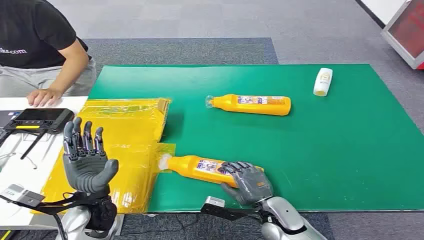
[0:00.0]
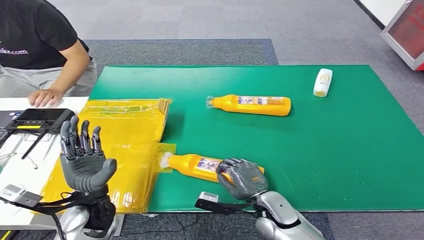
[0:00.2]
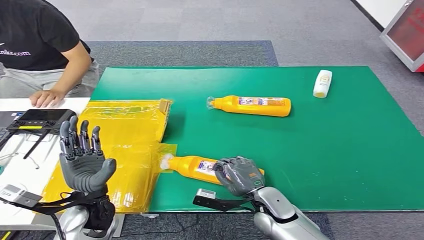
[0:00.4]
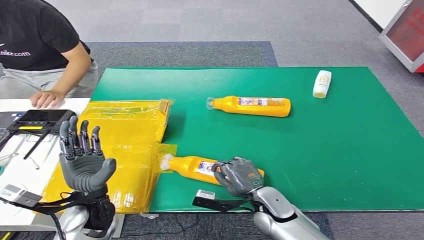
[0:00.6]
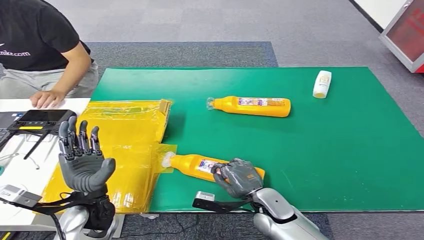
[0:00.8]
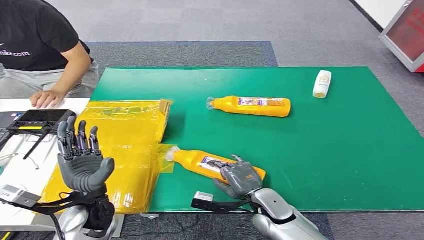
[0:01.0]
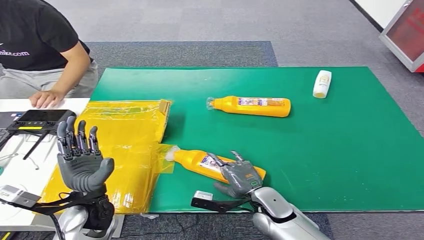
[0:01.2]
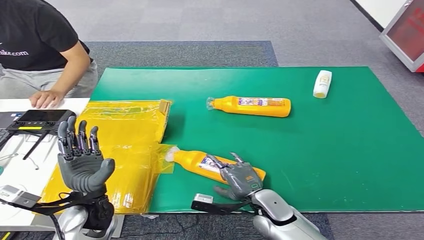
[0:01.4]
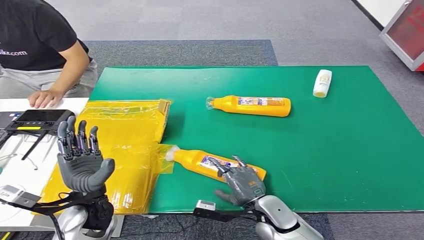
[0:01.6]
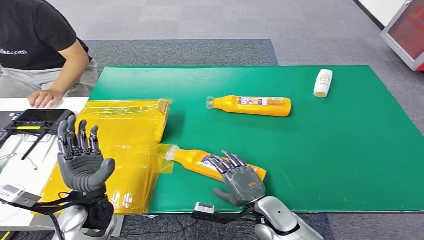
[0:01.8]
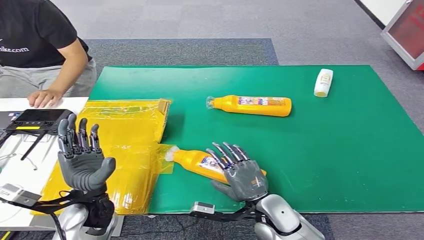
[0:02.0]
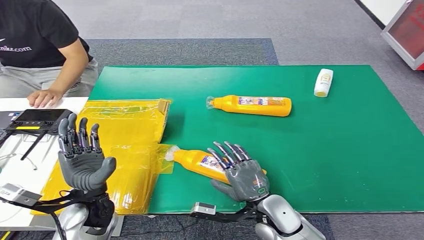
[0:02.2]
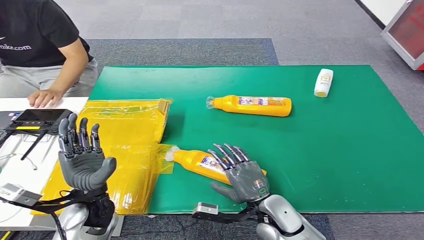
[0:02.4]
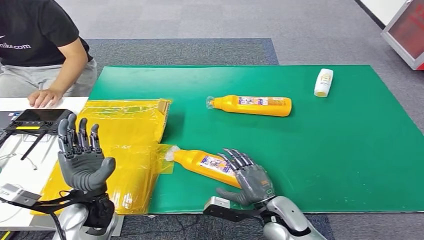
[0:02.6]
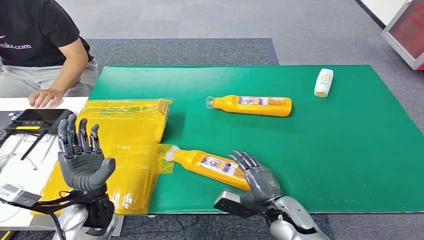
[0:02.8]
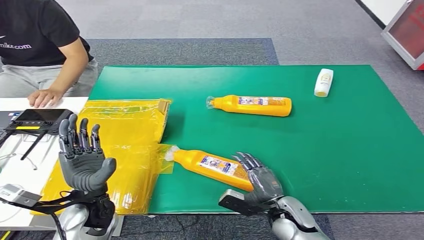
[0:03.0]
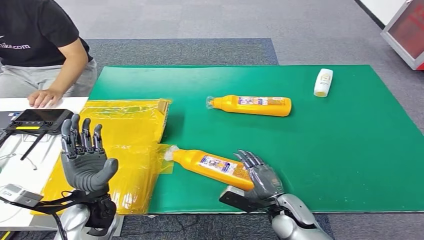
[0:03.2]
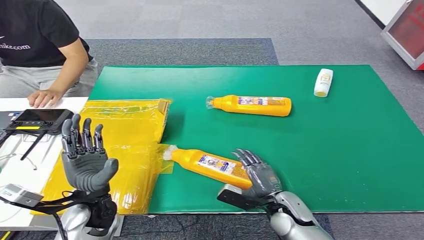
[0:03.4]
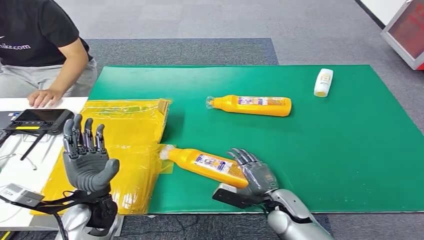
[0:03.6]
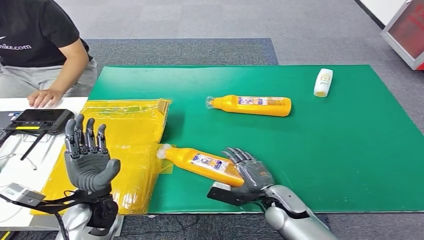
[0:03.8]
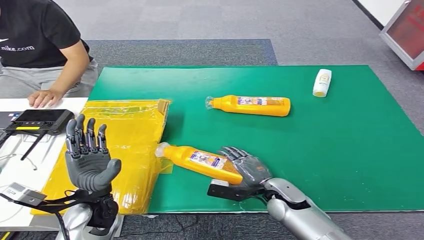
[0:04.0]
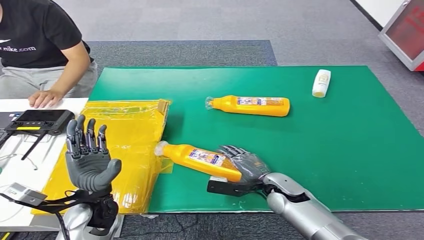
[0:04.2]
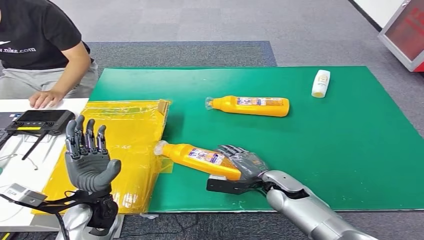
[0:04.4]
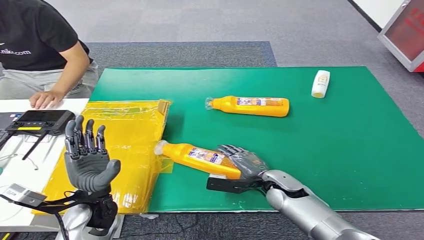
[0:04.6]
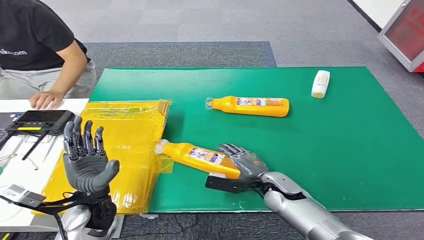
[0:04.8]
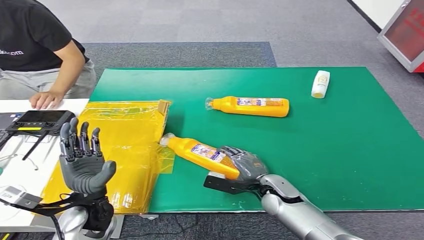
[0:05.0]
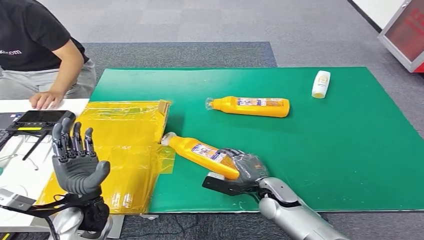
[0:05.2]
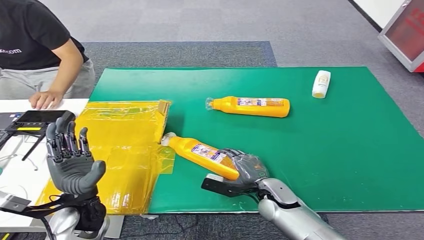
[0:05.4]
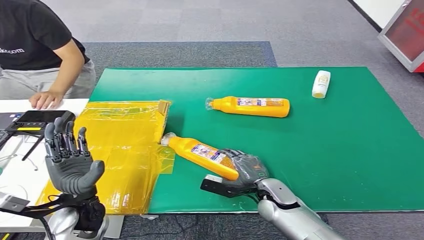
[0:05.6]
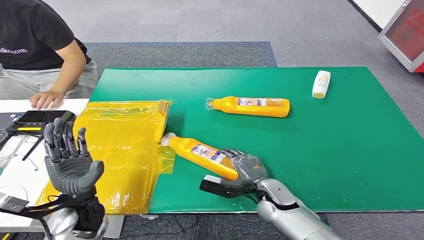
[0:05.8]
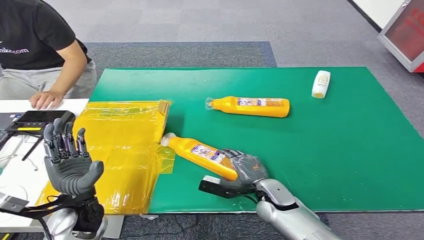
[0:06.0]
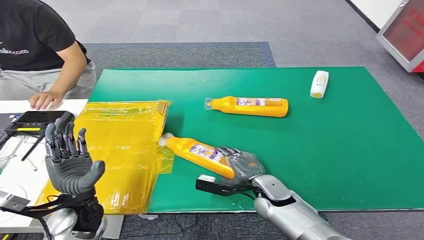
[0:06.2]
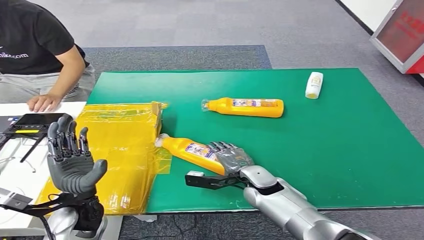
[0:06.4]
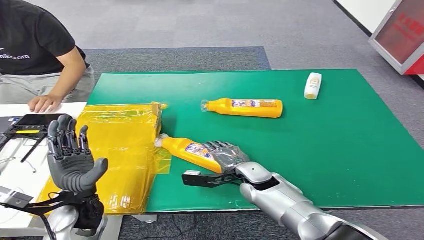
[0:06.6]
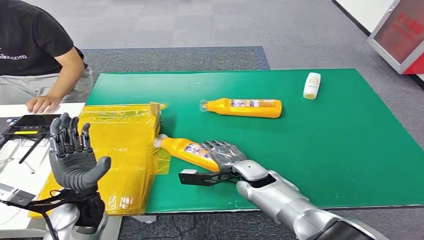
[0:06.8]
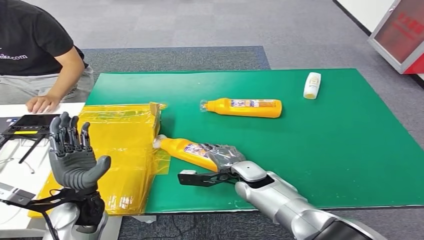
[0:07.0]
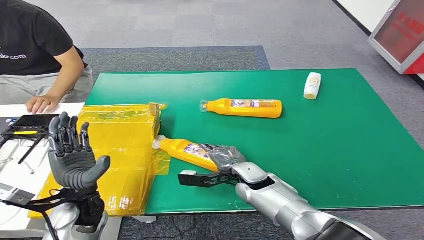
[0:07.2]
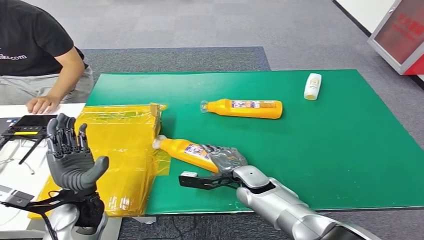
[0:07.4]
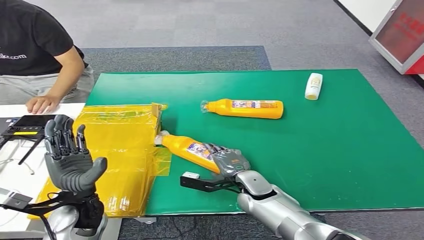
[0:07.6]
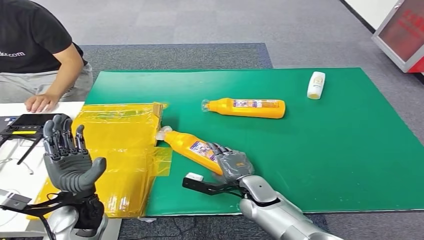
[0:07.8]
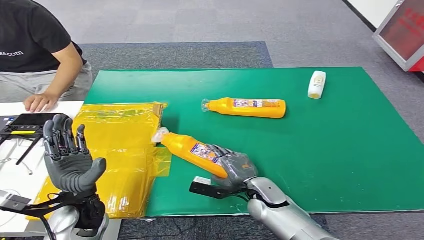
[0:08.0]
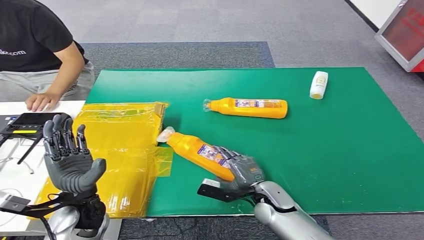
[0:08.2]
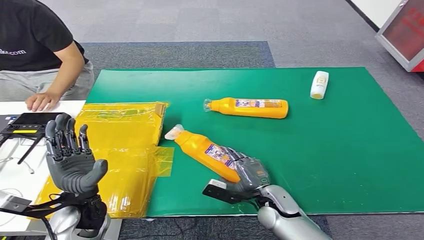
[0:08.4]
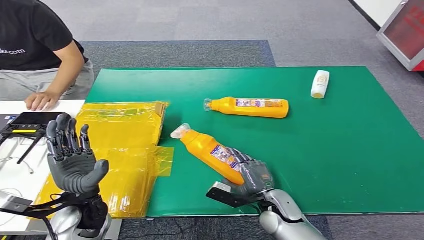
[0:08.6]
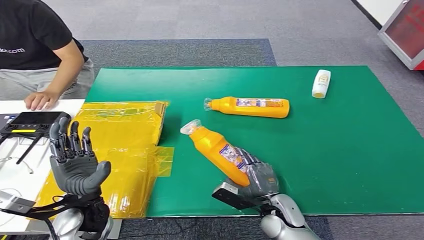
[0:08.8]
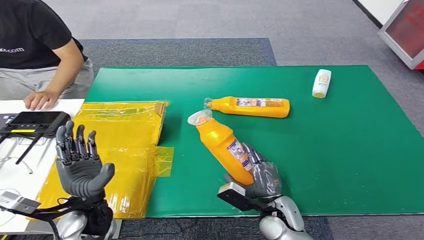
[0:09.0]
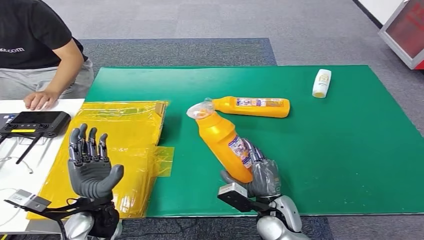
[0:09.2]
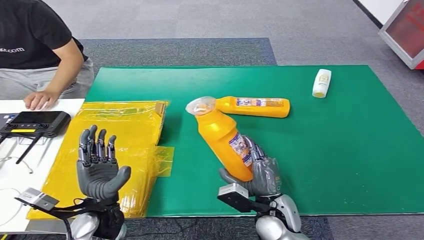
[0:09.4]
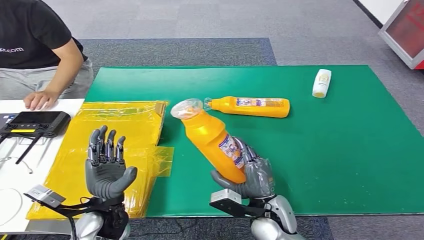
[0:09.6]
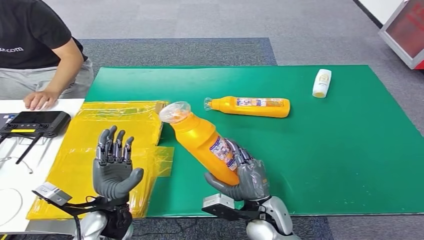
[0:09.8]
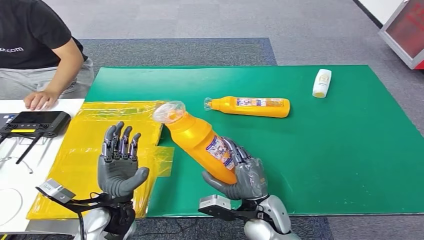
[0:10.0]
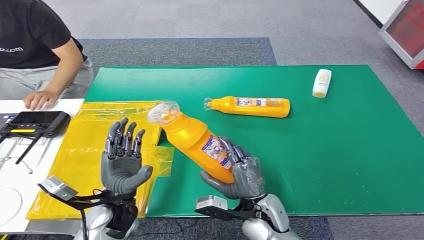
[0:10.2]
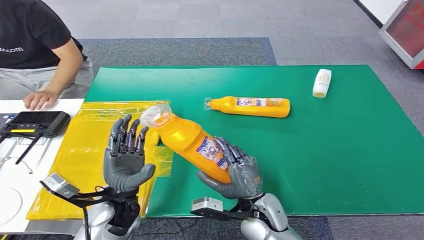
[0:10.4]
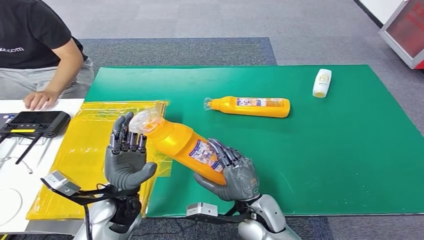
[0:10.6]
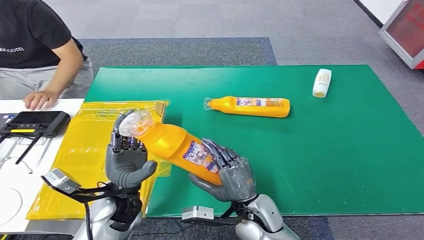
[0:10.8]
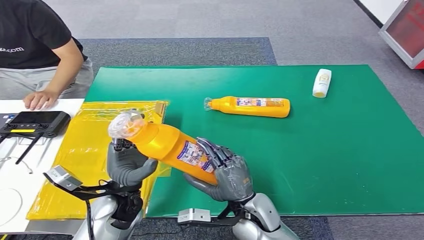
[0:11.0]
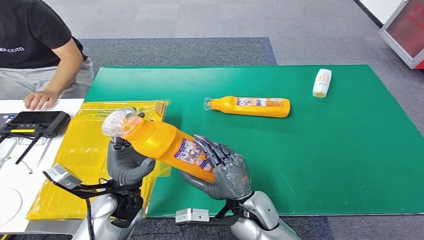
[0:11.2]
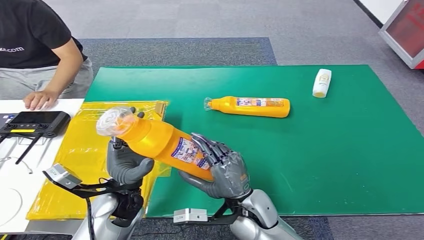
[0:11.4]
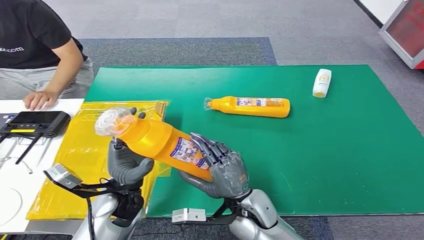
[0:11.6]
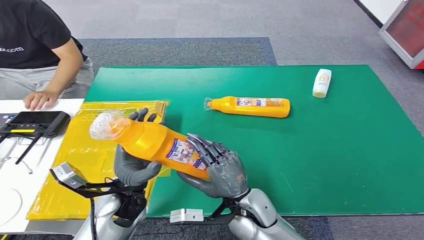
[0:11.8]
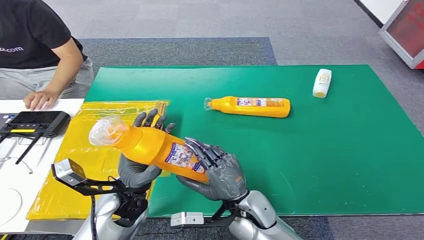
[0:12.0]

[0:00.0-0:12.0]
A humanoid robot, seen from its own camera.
Step, 0.0 to 9.2 s: Pick up the bottle from the table.
3.0 to 4.4 s: The right hand shifts roughly 10 cm forward.
4.4 to 6.0 s: The hands make only small movements.
10.4 to 12.0 s: The hands move only a little.

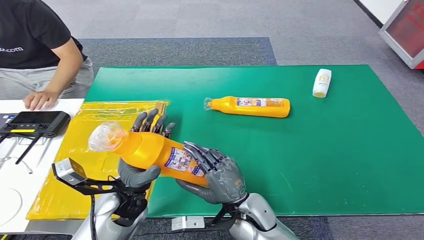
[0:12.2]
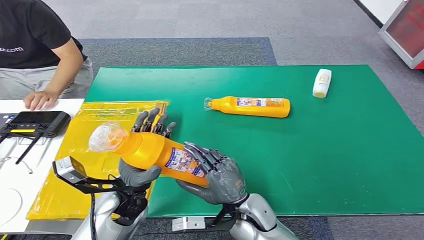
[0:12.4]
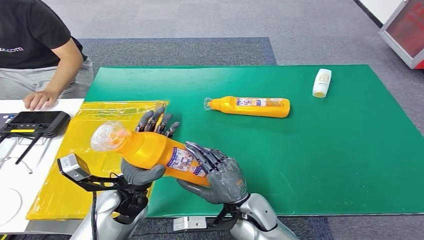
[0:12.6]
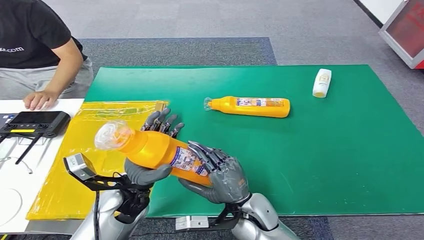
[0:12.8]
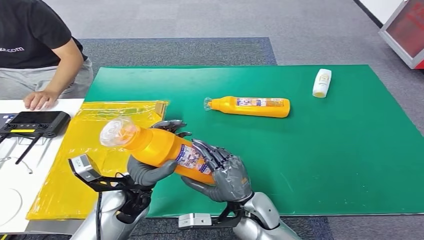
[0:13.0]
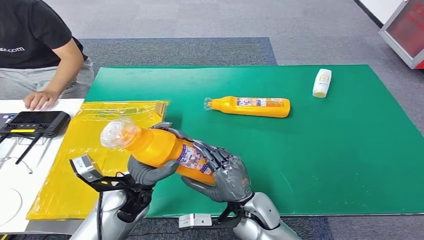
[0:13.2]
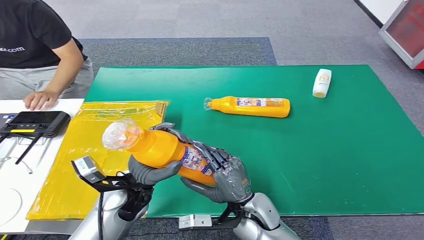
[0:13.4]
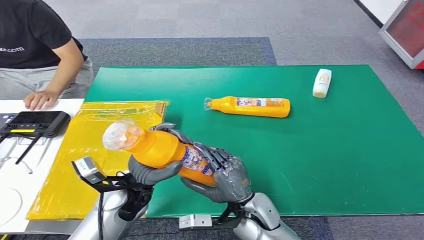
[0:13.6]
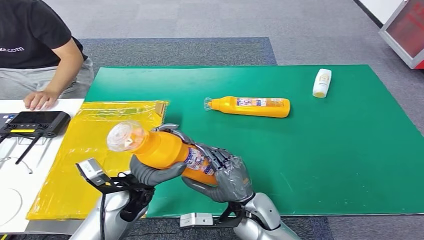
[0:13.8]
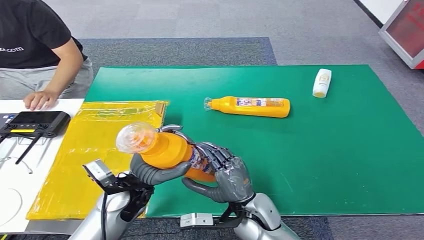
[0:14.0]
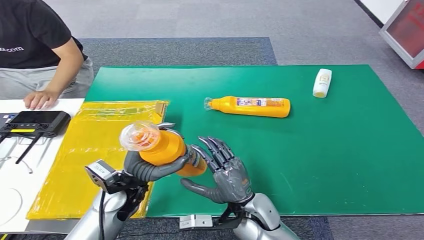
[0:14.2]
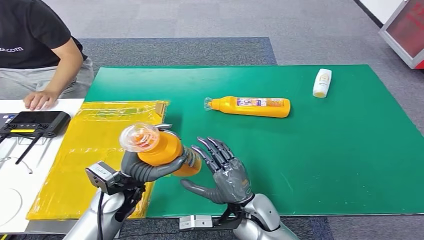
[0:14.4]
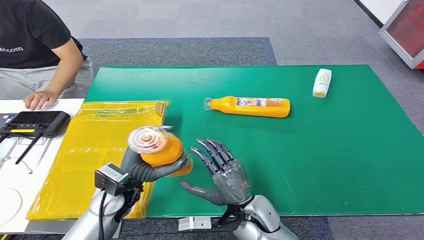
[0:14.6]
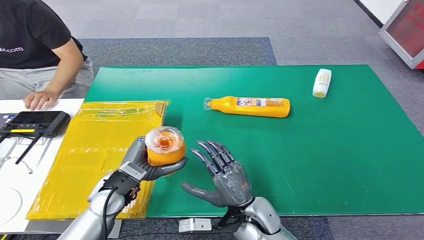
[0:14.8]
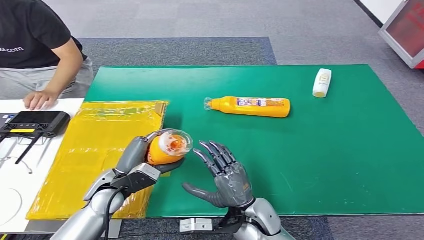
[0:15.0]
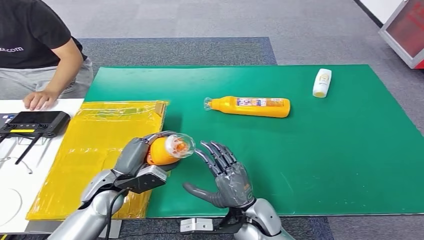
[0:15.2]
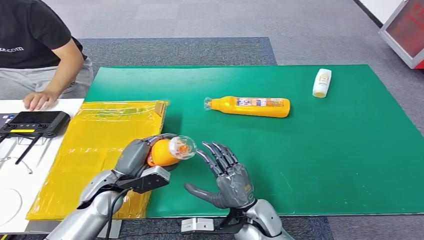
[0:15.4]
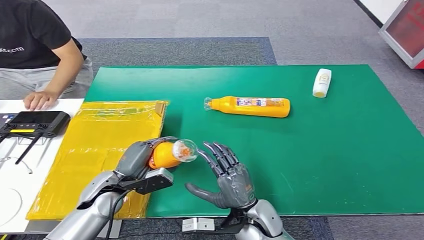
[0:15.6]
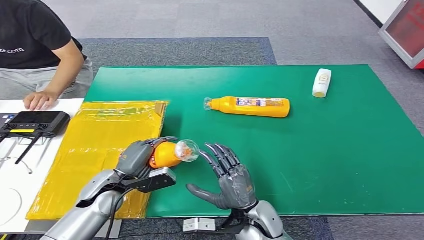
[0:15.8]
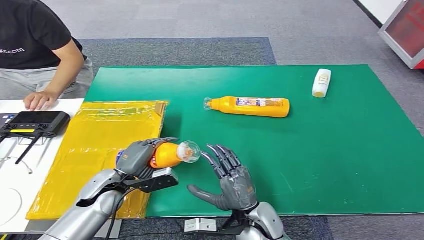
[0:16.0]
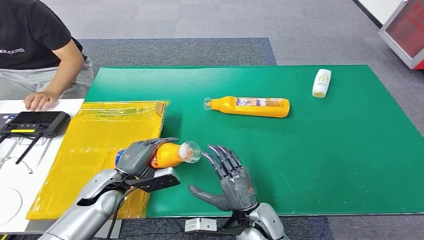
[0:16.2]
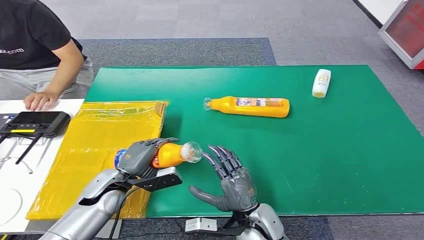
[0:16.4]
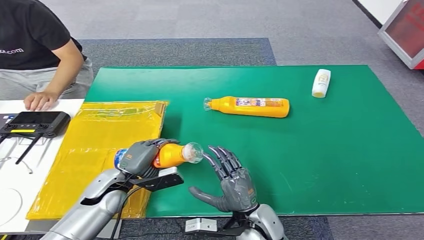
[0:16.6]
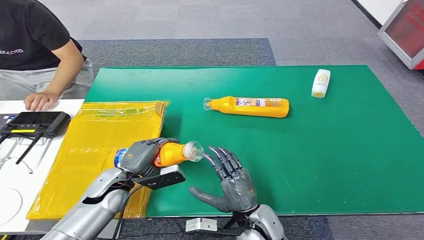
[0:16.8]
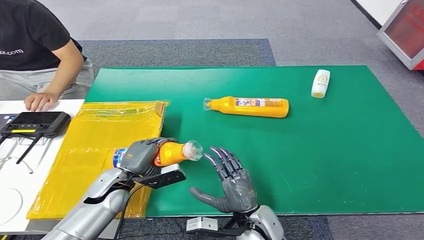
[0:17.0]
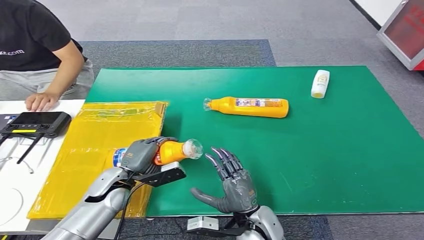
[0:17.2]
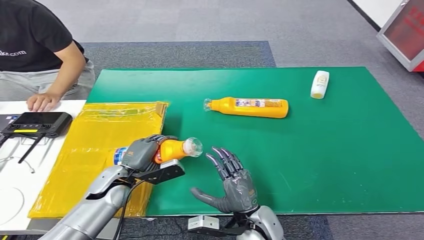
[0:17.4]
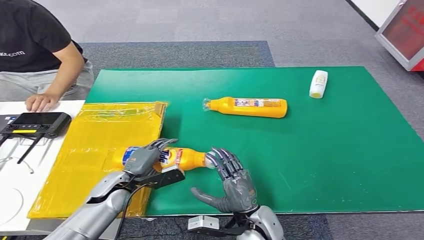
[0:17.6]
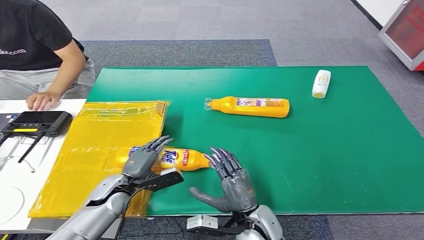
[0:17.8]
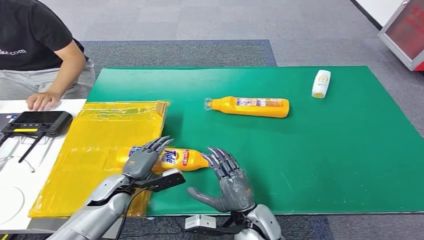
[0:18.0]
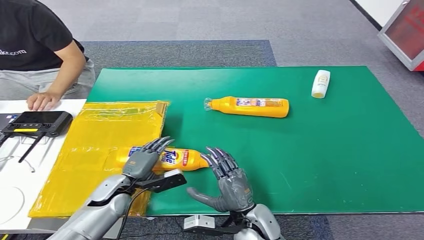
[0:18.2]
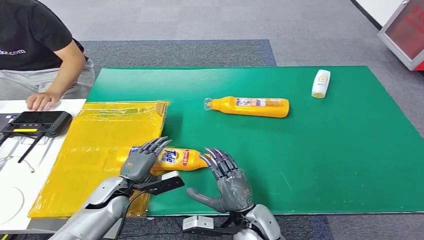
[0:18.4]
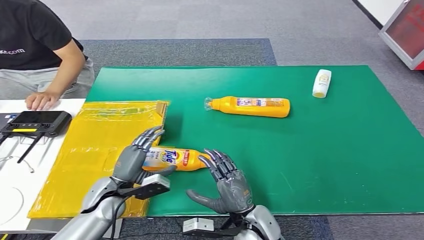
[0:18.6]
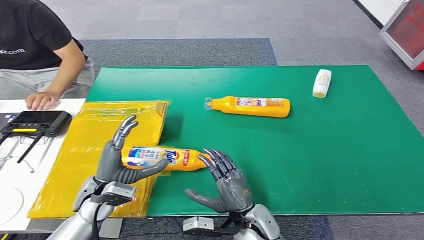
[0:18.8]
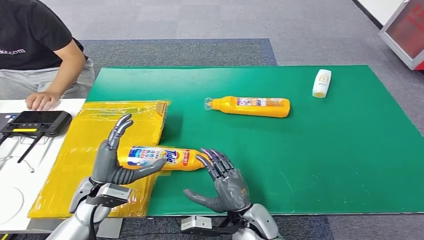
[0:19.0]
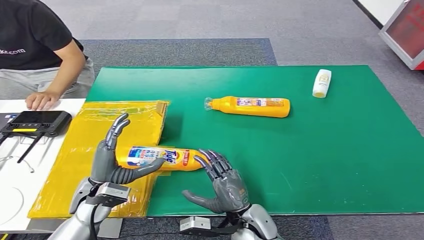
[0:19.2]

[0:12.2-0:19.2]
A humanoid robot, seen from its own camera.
Step, 12.2 to 19.2 s: Turn the bottle to the front side.
12.2 to 13.6 s: There are only small adjustments of the hands.
13.6 to 15.0 s: The left hand is displaced to the left by approximately 5 cm.
16.4 to 17.8 s: There are only small adjustments of the hands.
17.8 to 19.2 s: The left hand is displaced upward by about 10 cm.
